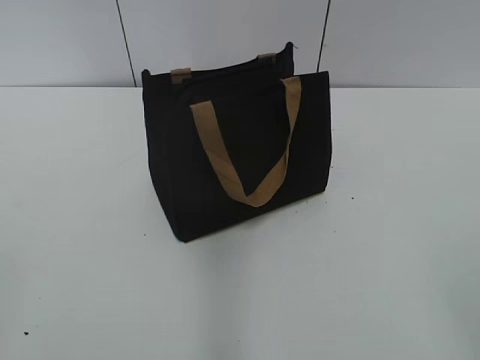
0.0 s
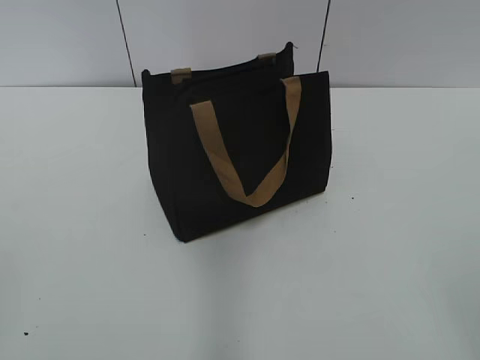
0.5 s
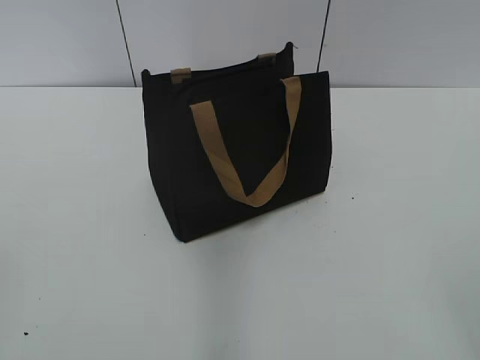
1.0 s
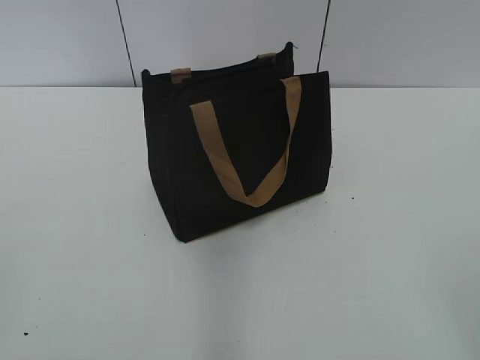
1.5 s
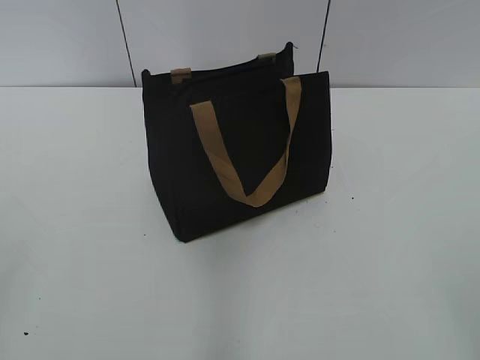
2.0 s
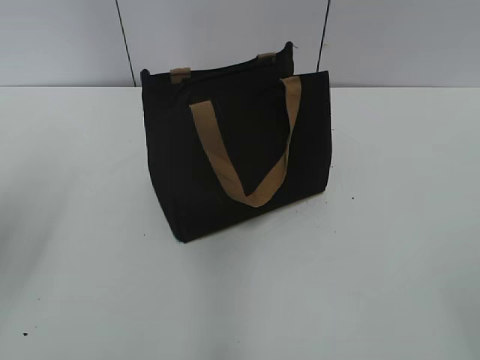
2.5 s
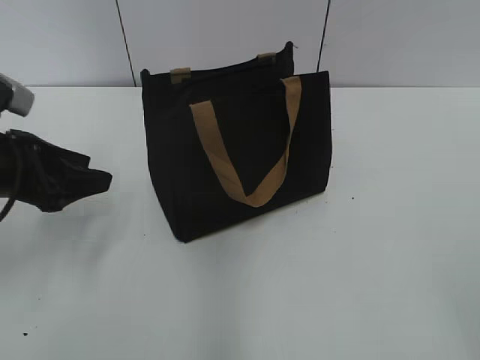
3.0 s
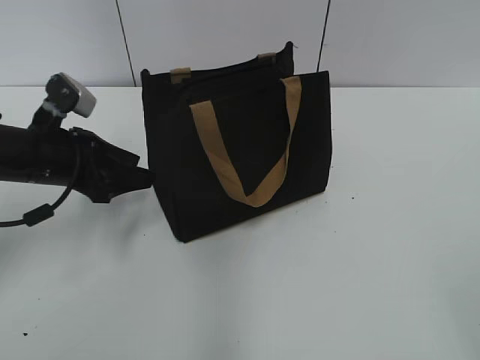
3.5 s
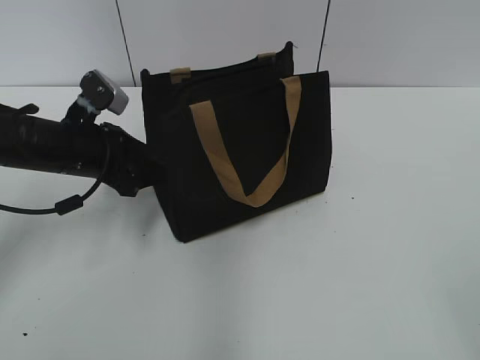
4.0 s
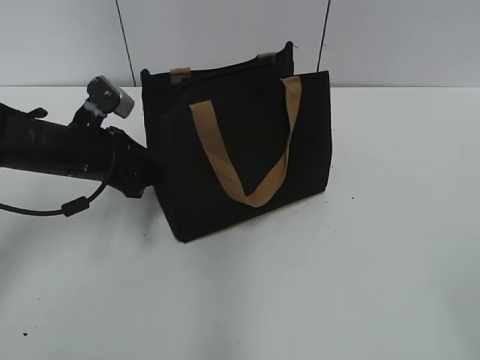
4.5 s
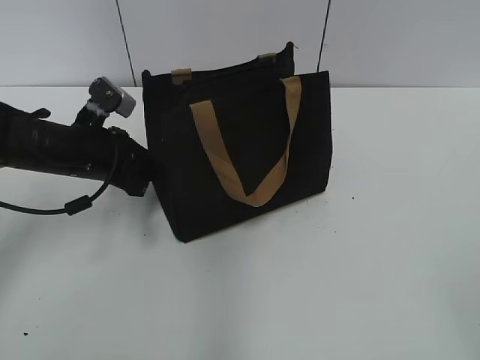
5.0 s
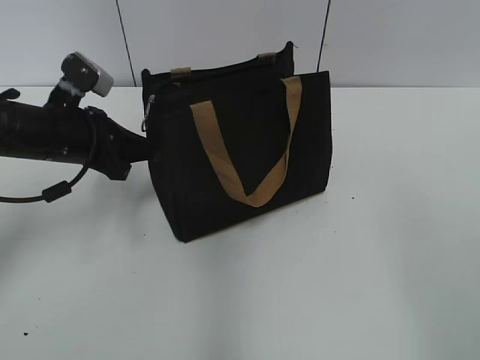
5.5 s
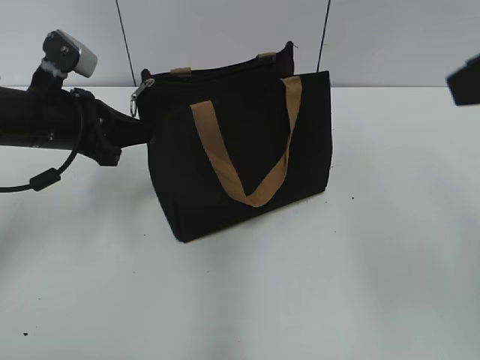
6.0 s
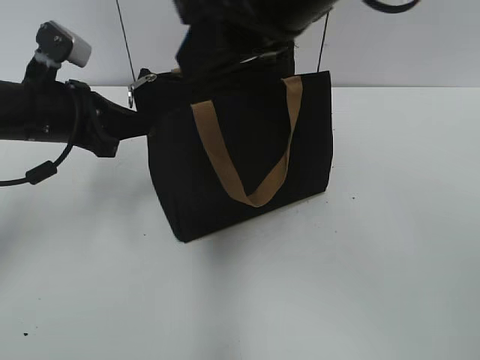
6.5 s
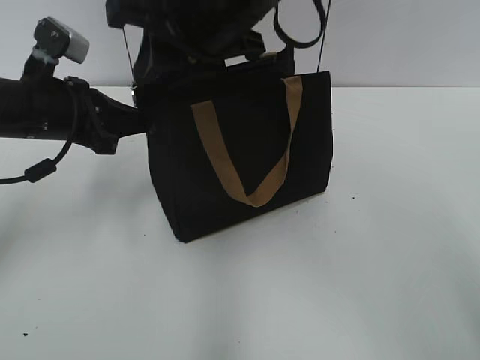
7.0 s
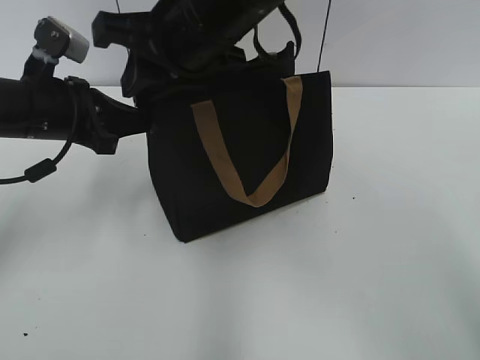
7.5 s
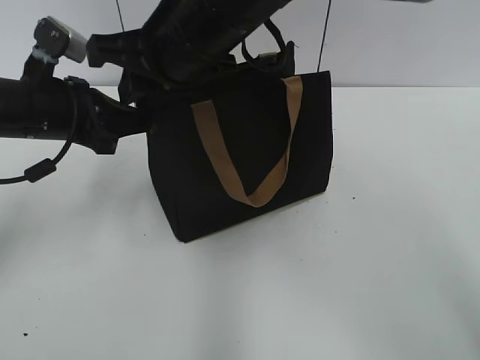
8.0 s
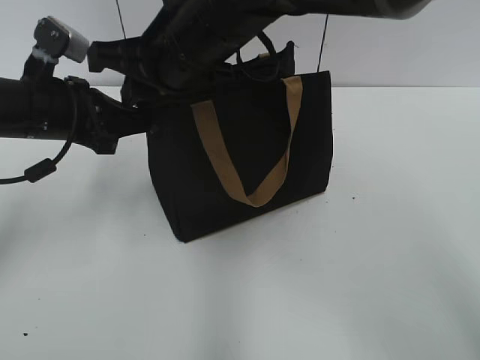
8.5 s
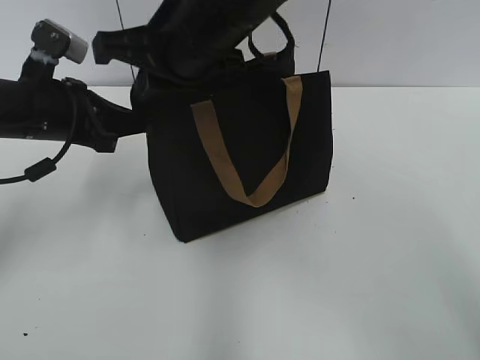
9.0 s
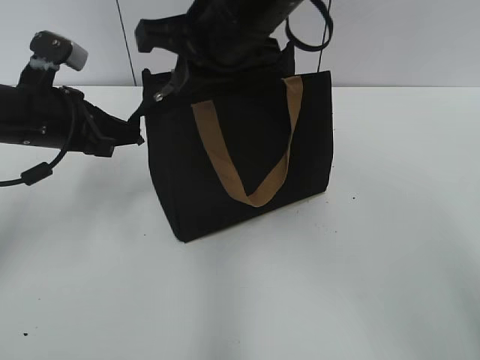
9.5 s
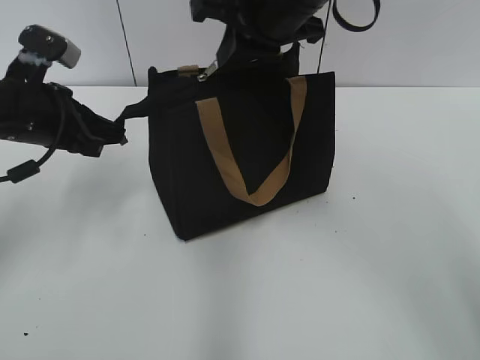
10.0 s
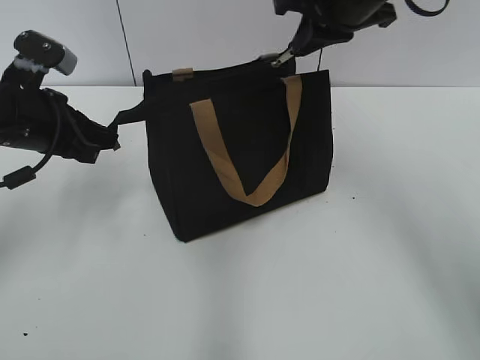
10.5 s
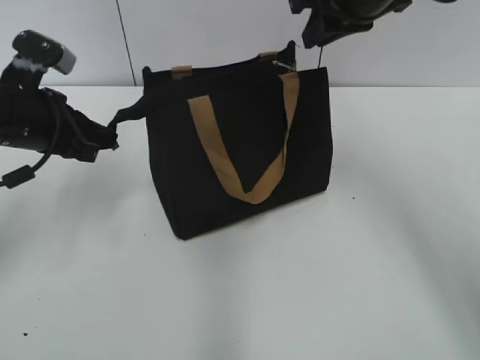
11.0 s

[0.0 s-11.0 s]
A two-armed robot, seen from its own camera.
Step, 0.0 to 10.5 s: Zip up the bag with your right hand.
2.0 to 3.5 s: The left gripper shifts approximately 35 cm forward and downward.
3.5 to 5.5 s: The left gripper closes.
5.5 to 7.5 s: The right gripper shifts approximately 40 cm forward and to the left.
7.5 to 9.0 s: The right gripper closes its fingers.
9.0 to 11.0 s: The right gripper shifts approximately 20 cm to the right and forward.

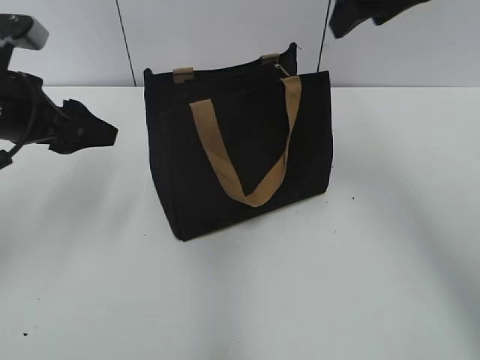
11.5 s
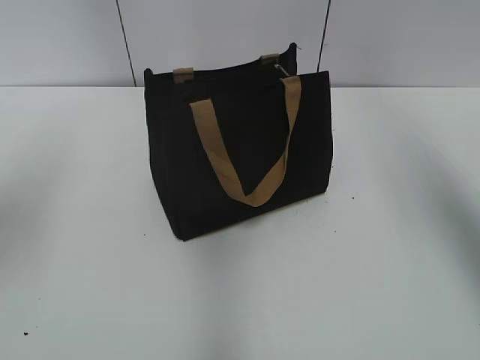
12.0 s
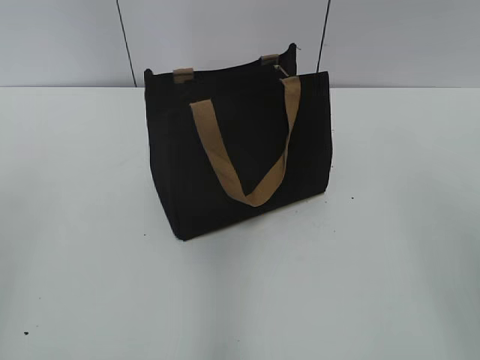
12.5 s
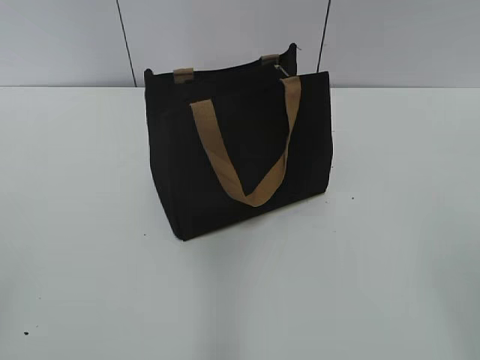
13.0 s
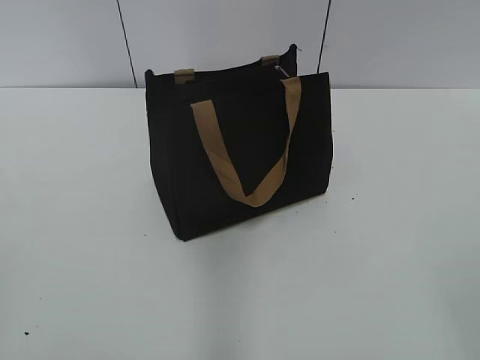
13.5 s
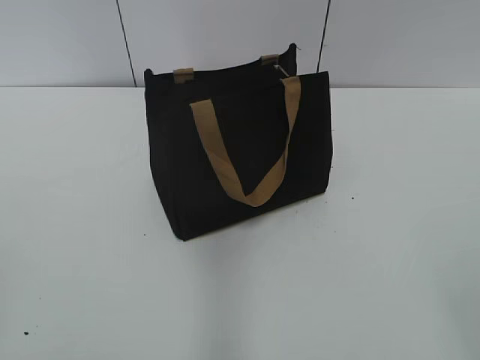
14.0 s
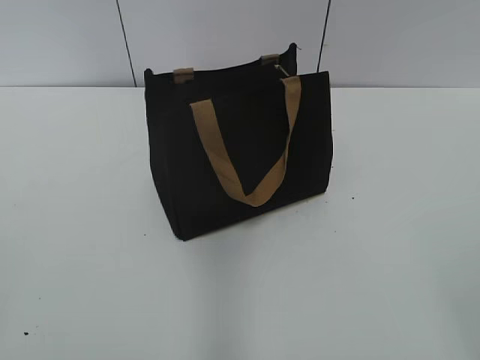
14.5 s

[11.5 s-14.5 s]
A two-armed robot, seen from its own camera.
11.5 to 13.0 s: Both grippers move backward, approximately 30 cm.
